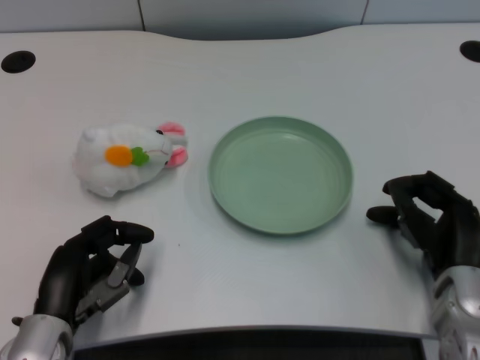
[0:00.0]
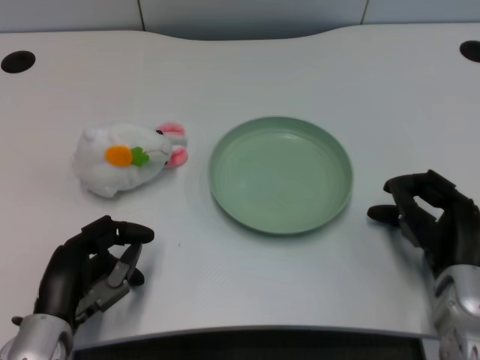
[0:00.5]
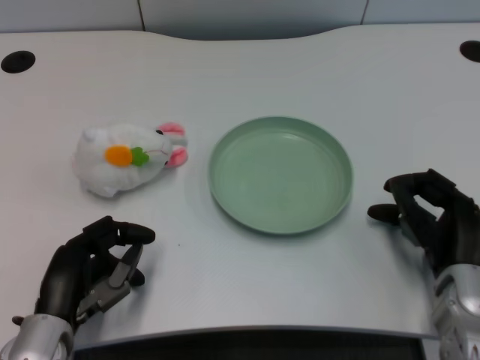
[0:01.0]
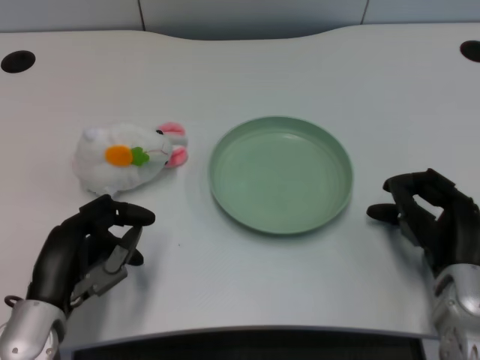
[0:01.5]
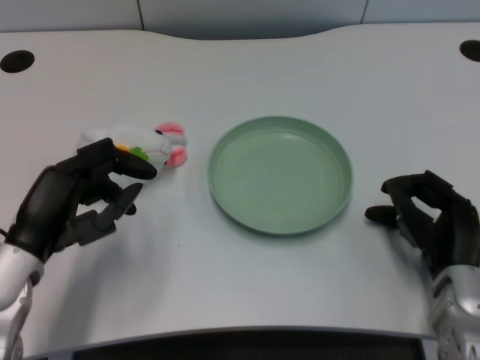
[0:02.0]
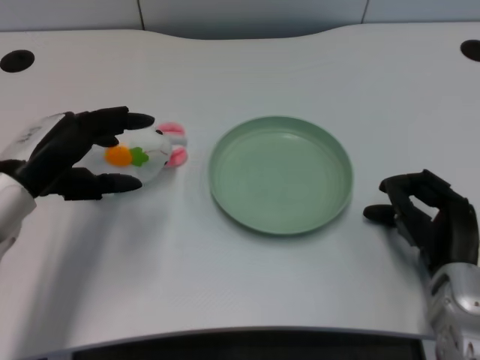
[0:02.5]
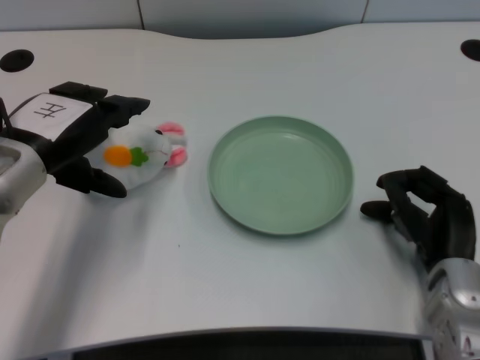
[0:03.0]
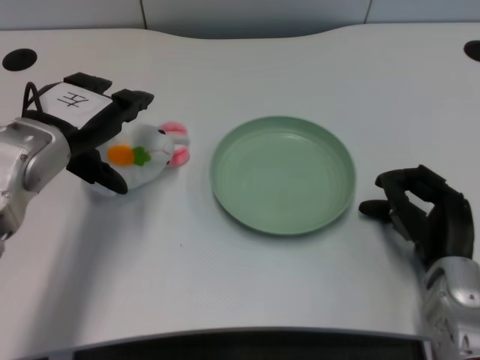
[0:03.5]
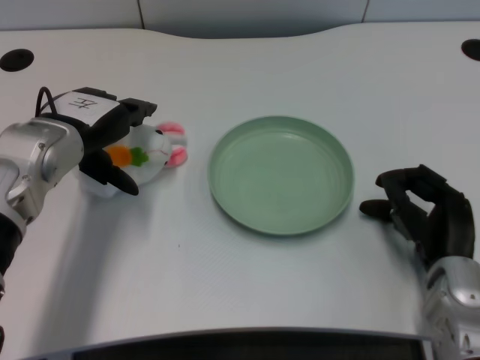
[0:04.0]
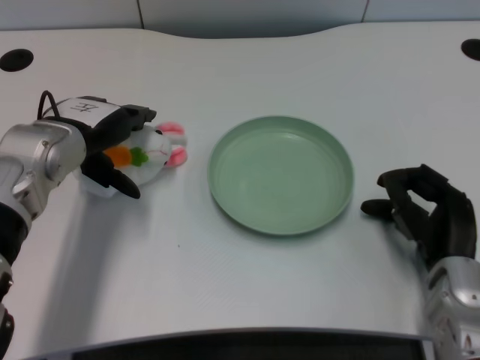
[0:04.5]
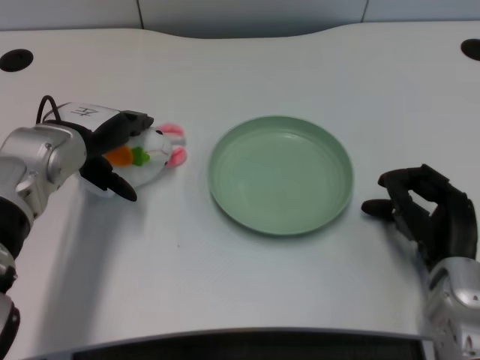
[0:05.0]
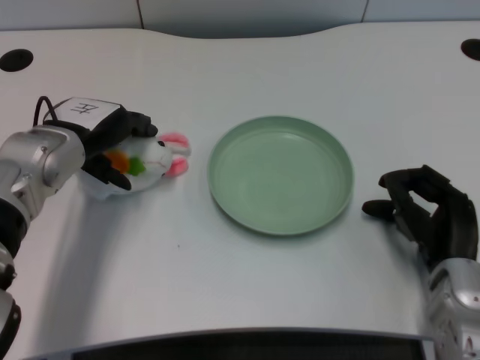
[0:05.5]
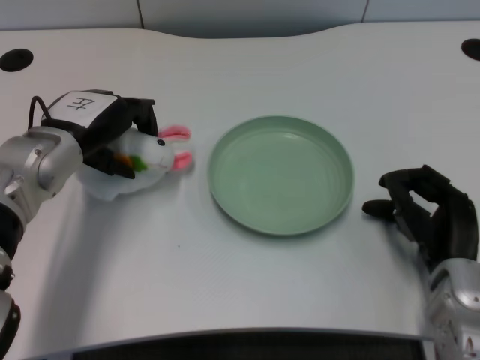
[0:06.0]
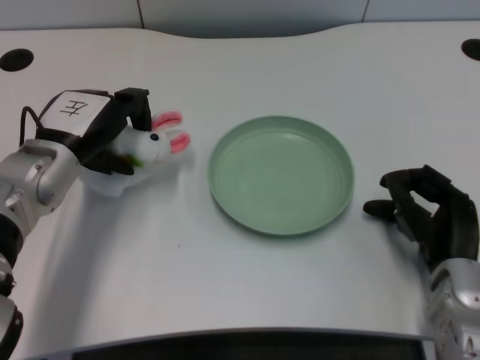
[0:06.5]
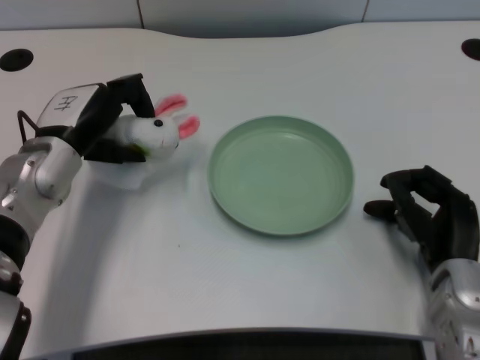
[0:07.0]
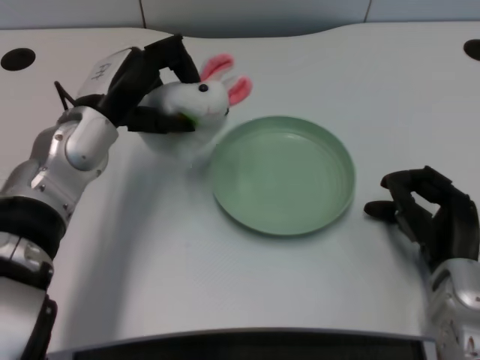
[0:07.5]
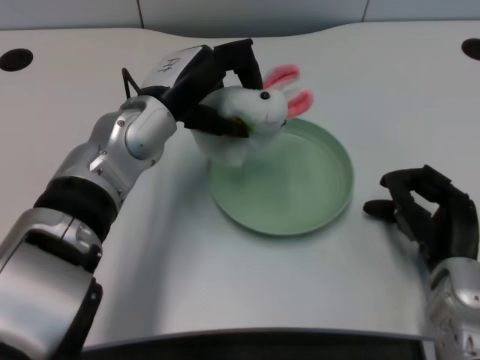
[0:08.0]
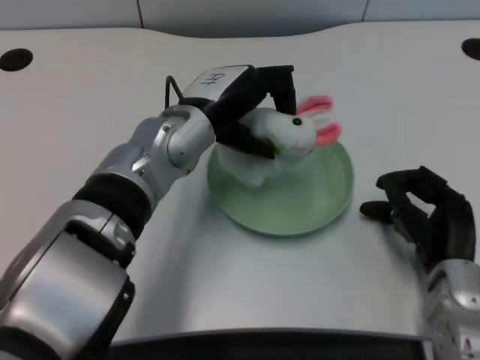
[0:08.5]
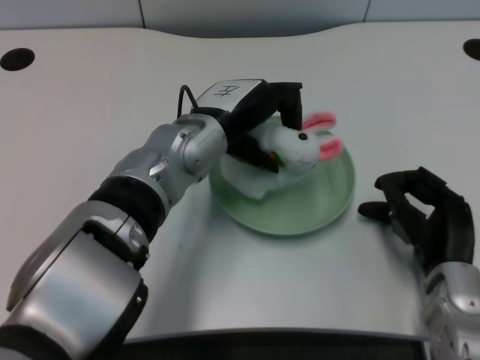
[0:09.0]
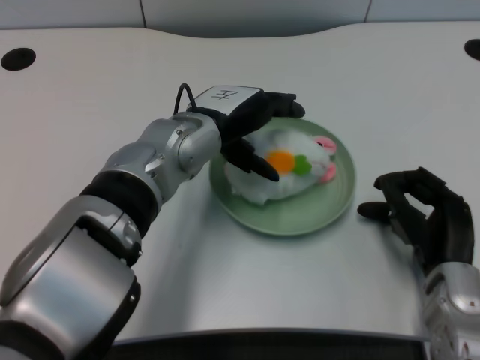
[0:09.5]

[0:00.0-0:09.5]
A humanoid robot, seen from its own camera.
Task of the whole recording: pick up the rabbit doll from the table and place it on the plate.
Step, 0:02.0 to 0:06.5: Grasp the rabbit doll with the left gripper.
Step, 0:07.0 to 0:09.0: Place the rabbit doll into the plate with the left gripper.
0:02.0 to 0:04.0: The left hand heads forward, covering some 10 cm.
0:04.0 to 0:05.5: The hands make only small movements.
0:07.5 to 0:09.5: The left hand moves to the right, approximately 10 cm.

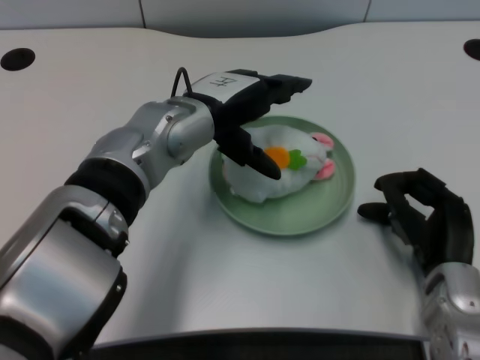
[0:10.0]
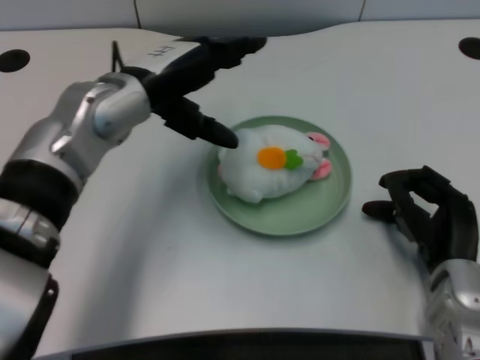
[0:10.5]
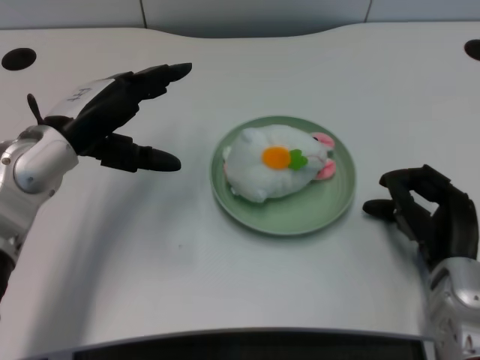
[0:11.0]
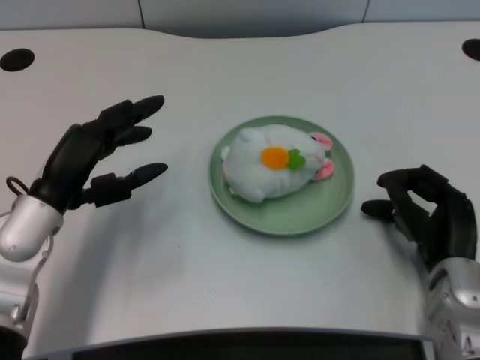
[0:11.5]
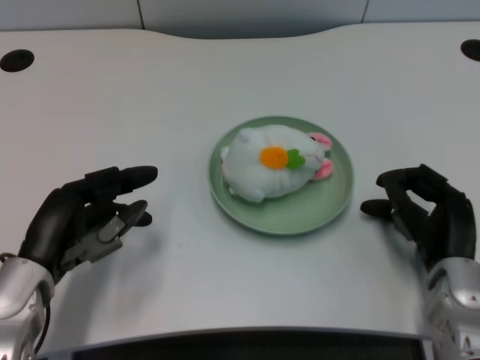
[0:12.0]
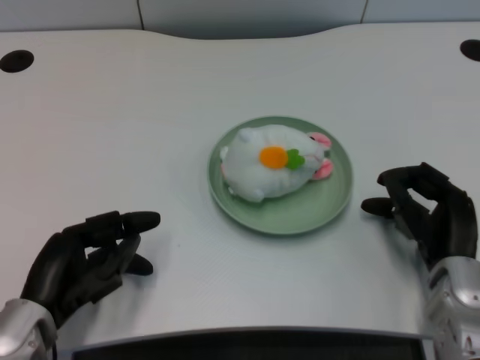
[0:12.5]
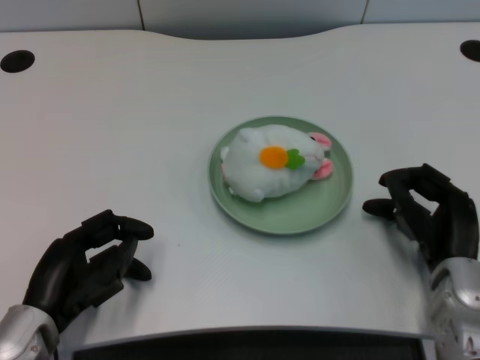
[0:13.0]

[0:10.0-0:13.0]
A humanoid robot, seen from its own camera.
Task of the whole recording: pick up the rabbit doll from the table and place it on the plate.
0:10.0 to 0:11.5: The left hand moves to the left and backward, some 15 cm.
0:11.5 to 0:13.0: The left hand shifts about 10 cm backward and downward.
